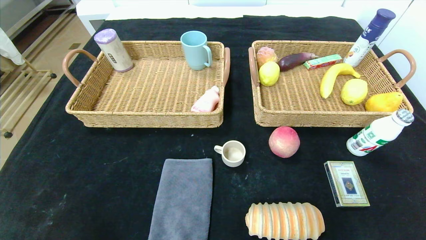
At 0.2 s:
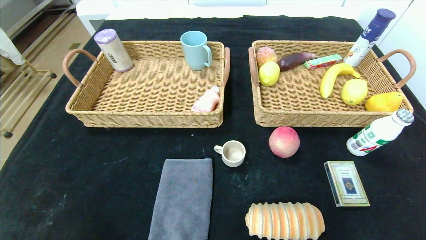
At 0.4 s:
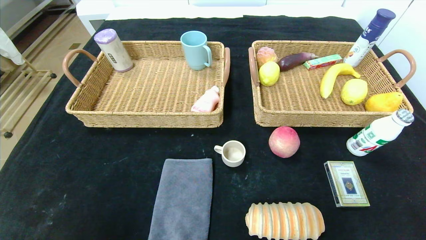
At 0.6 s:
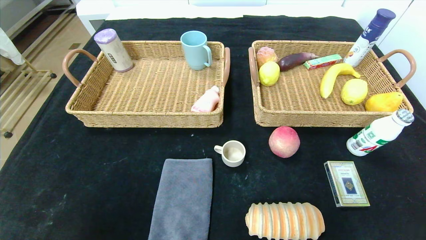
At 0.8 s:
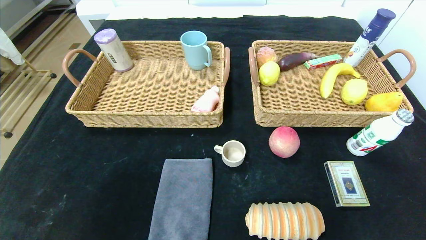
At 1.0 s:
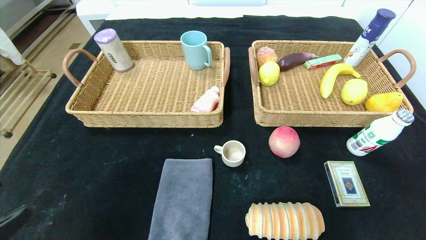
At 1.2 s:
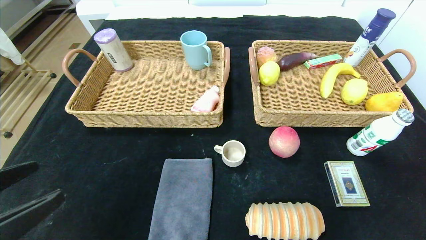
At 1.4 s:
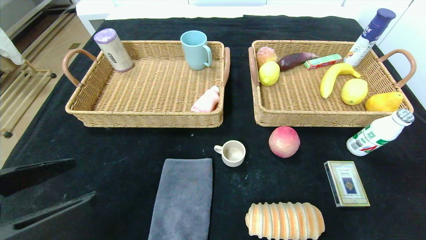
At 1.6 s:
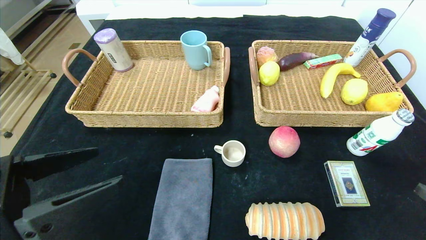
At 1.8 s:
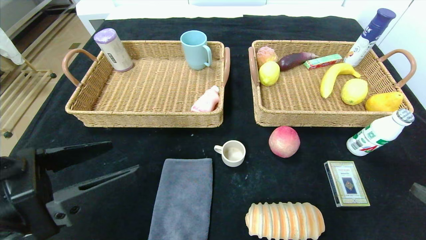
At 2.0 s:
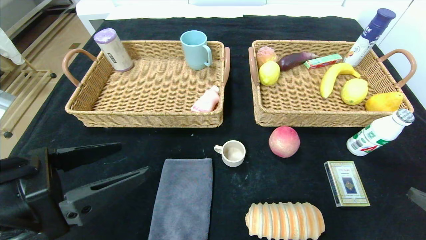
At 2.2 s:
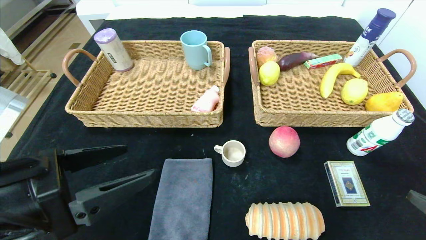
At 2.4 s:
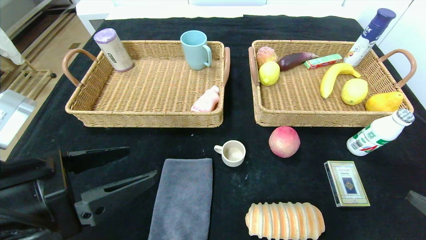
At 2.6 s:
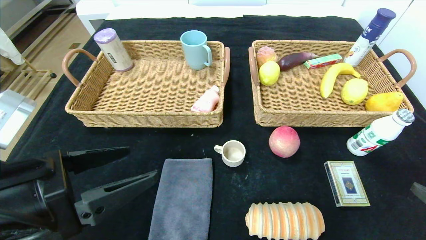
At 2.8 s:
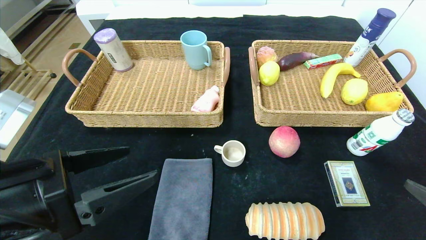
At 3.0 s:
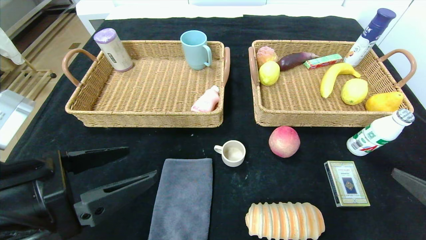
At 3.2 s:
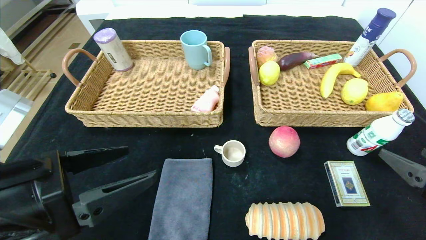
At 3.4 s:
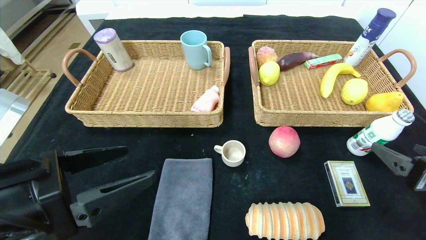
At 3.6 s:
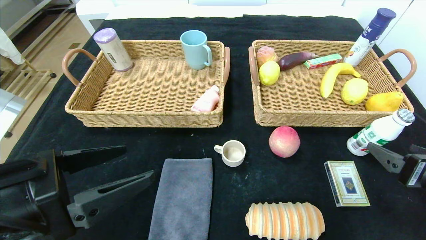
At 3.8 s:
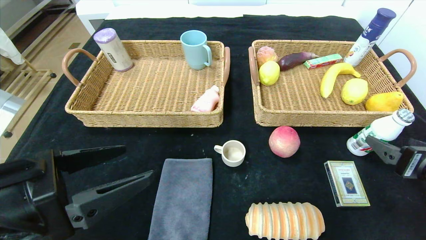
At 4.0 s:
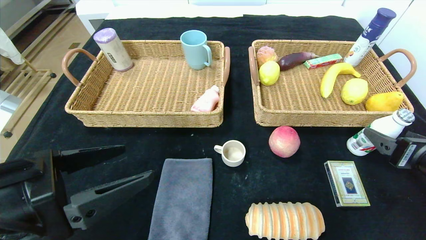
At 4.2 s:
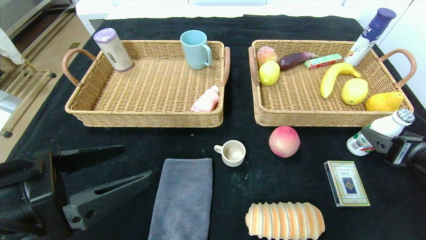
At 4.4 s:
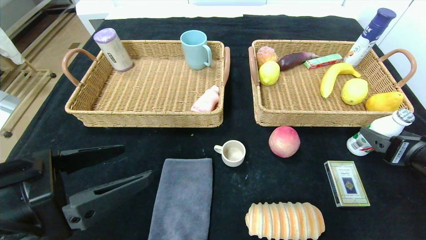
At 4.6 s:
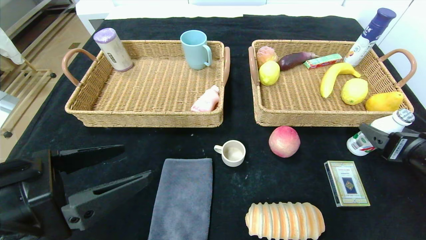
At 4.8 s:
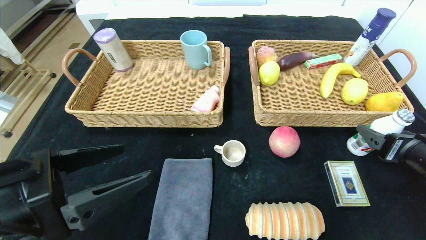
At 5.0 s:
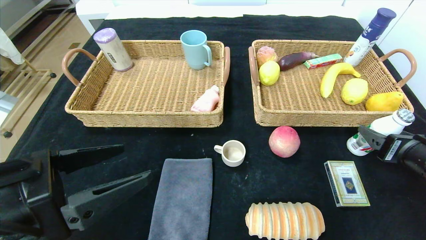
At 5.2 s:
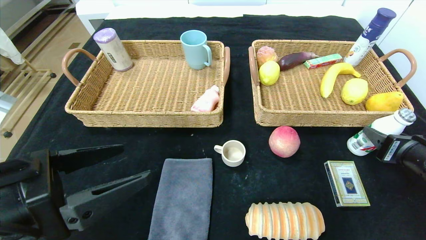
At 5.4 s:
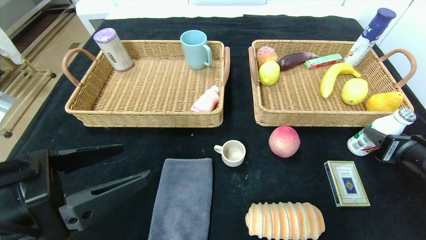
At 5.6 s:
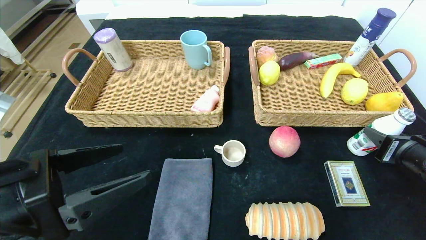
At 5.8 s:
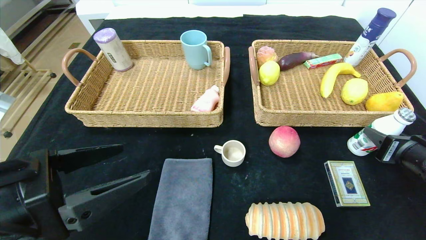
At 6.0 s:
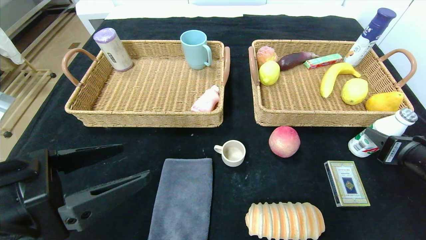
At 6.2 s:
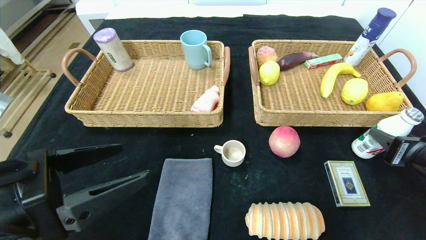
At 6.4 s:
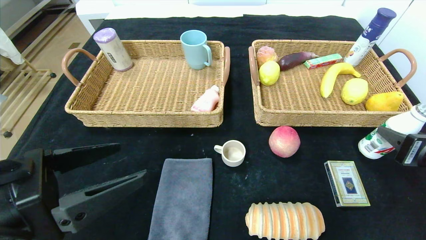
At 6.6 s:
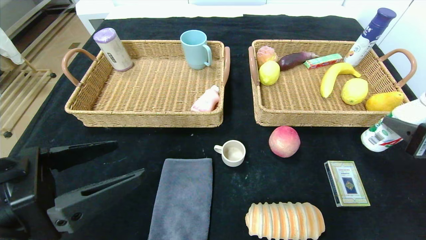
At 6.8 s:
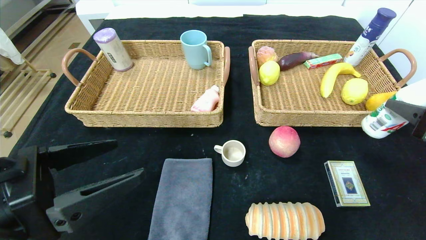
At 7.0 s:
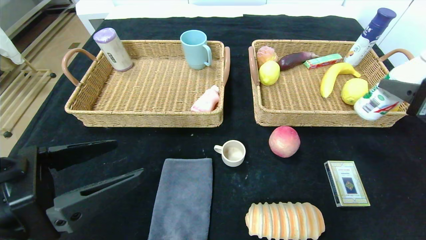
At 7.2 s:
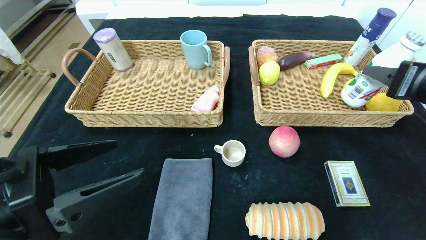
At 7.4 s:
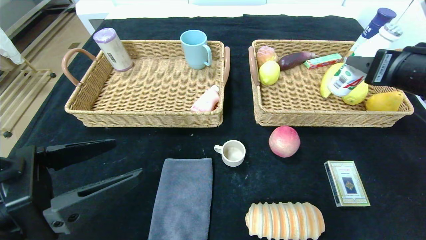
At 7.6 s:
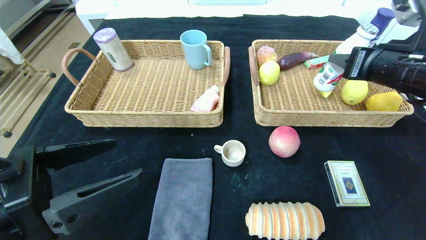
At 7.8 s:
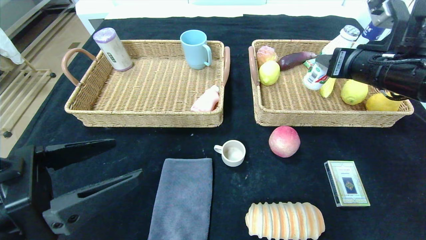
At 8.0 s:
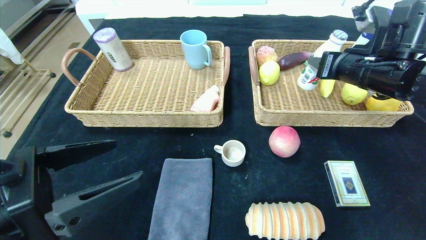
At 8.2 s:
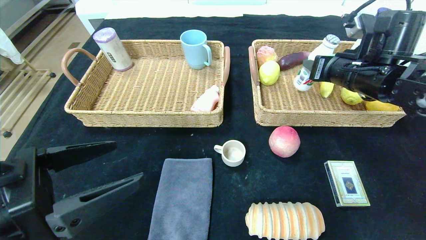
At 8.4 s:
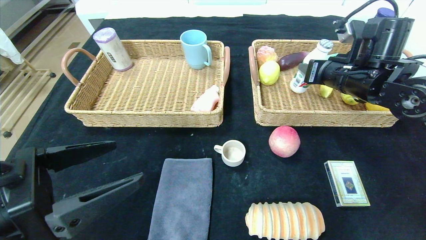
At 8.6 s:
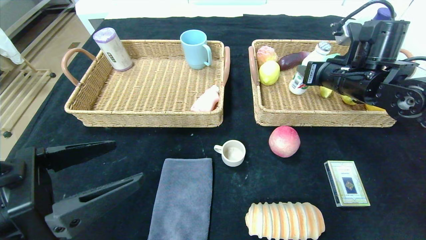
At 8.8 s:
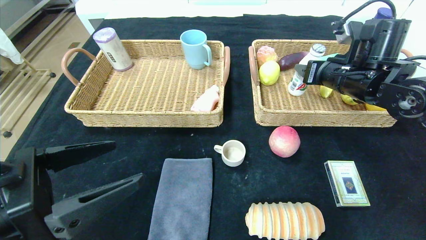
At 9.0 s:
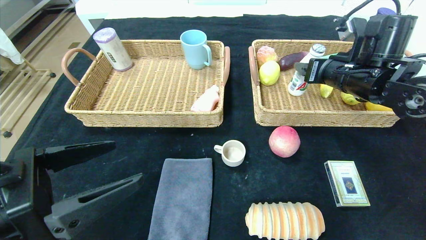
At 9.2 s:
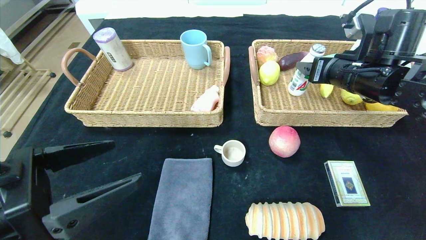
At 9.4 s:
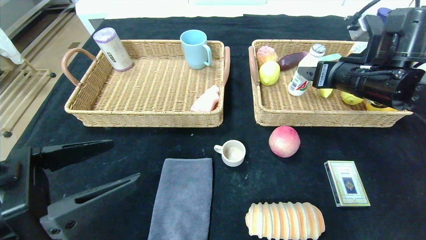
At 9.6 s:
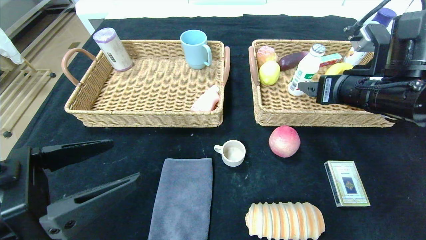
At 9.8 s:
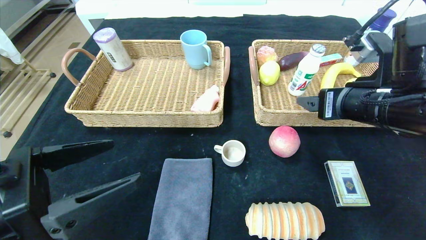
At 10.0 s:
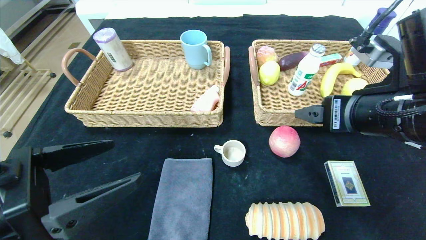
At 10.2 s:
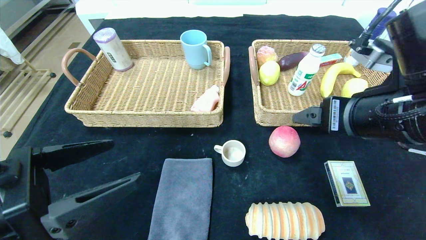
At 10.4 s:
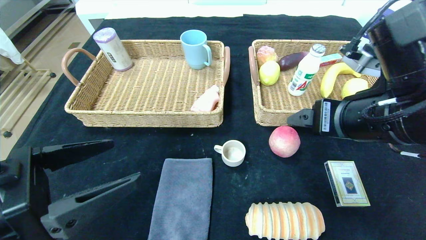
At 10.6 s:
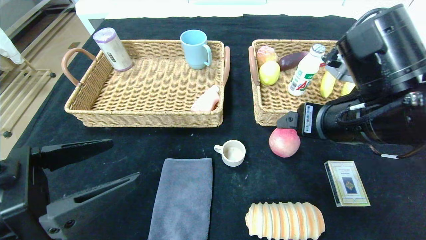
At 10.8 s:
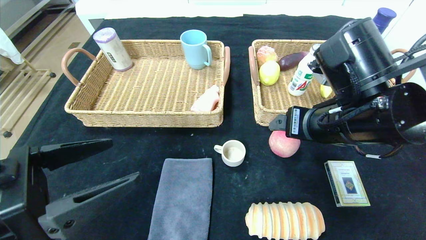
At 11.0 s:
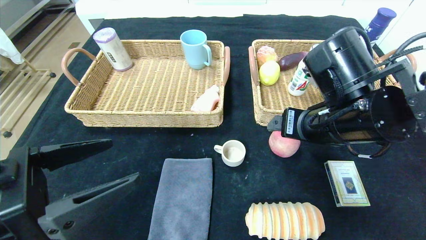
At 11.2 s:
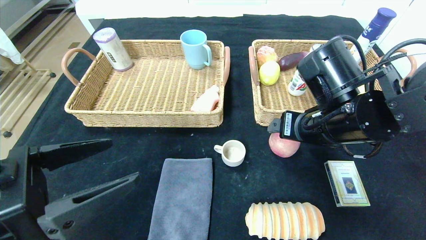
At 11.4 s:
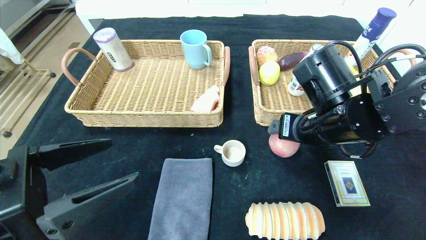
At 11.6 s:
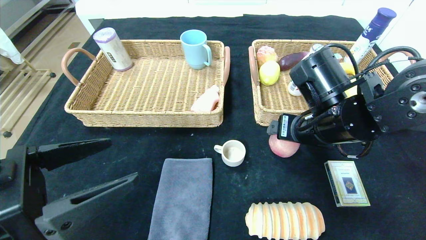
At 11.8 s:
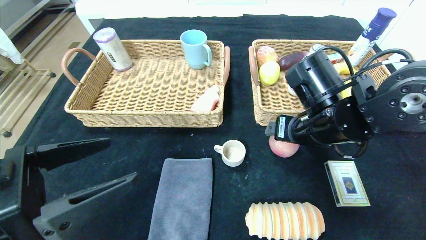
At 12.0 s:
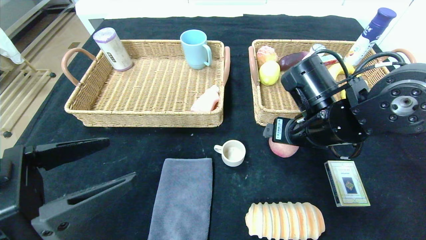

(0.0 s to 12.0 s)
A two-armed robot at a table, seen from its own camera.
Step, 0.0 s - 9.8 s: Grasp the milk and put it in the right basket.
0.0 s - 1.6 s: Both grippers travel together upward and forward, some 20 cm.
1.6 s - 3.0 s: The grippers stay close to where they were, moving slightly.
3.0 s - 4.4 s: The right gripper heads forward, covering some 10 cm.
4.4 s - 6.0 s: The right gripper closes up.
6.0 s - 7.6 s: The right gripper moves upward, forward and to the left, about 15 cm.
7.6 s - 9.0 s: The right gripper shifts roughly 10 cm forward.
9.0 s - 10.4 s: The right gripper travels backward and to the left by some 15 cm.
10.4 s - 12.0 s: The right gripper is displaced forward and downward by approximately 10 cm.

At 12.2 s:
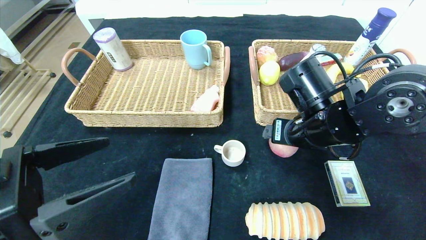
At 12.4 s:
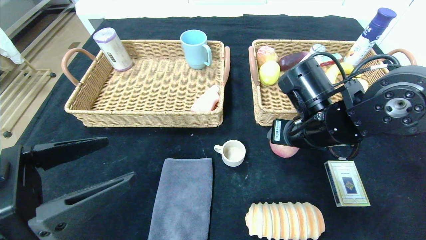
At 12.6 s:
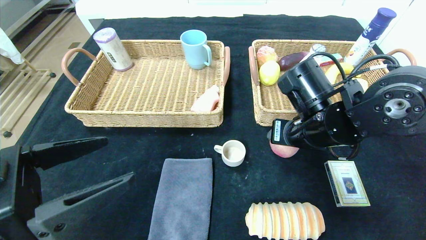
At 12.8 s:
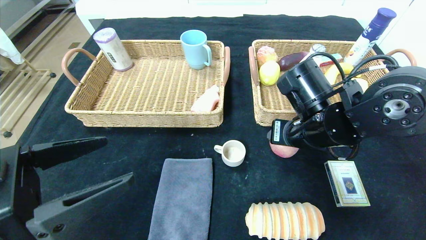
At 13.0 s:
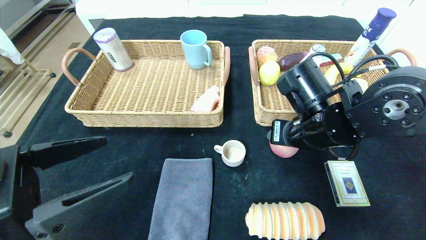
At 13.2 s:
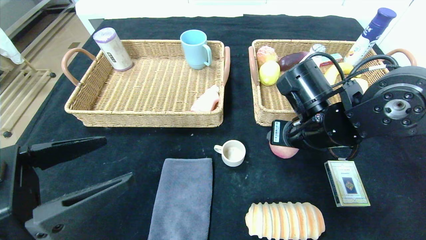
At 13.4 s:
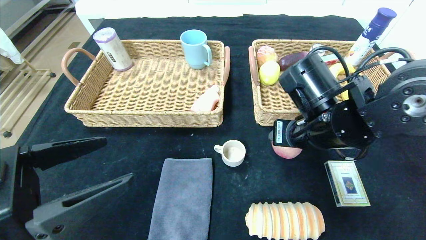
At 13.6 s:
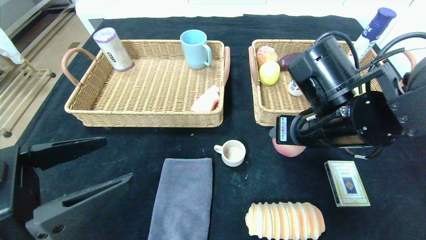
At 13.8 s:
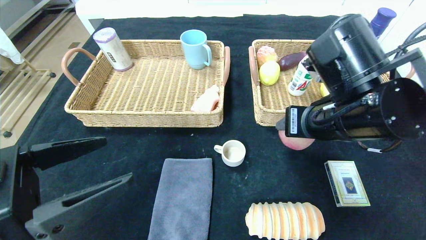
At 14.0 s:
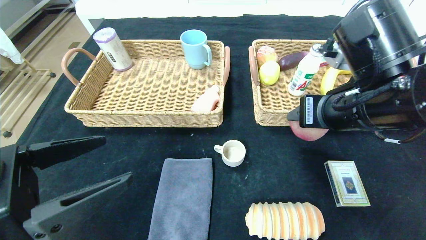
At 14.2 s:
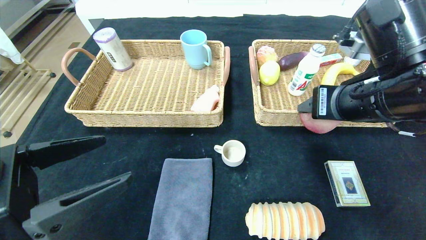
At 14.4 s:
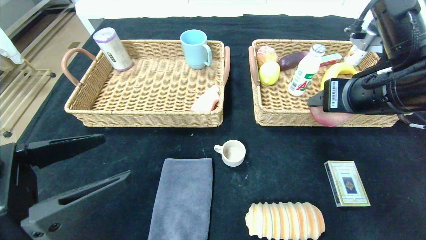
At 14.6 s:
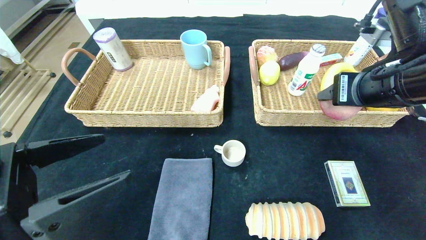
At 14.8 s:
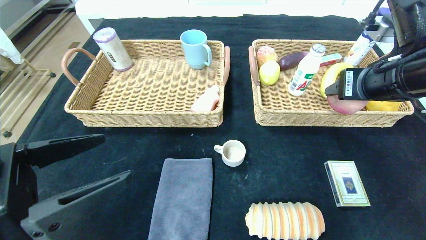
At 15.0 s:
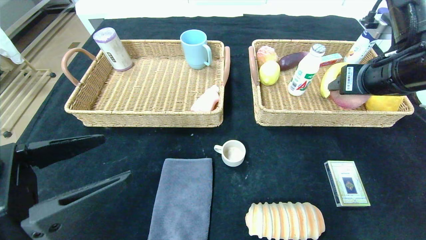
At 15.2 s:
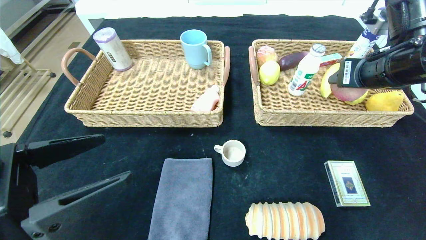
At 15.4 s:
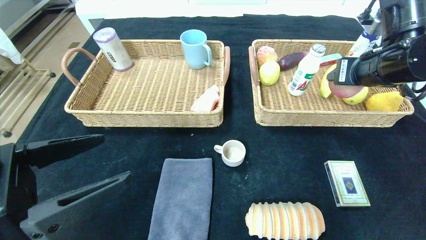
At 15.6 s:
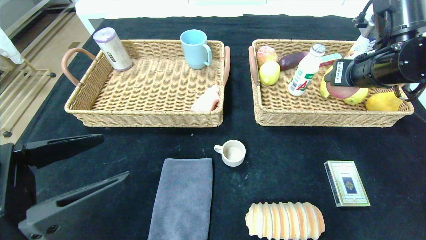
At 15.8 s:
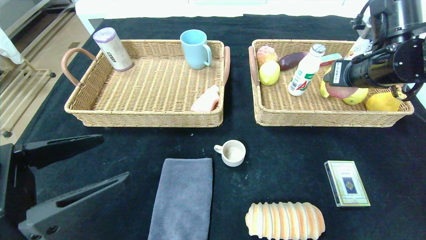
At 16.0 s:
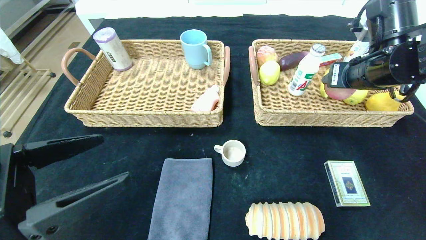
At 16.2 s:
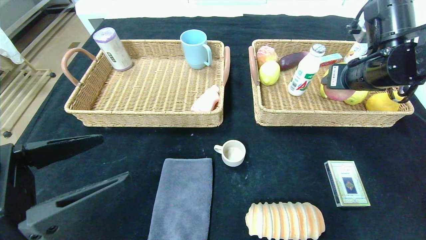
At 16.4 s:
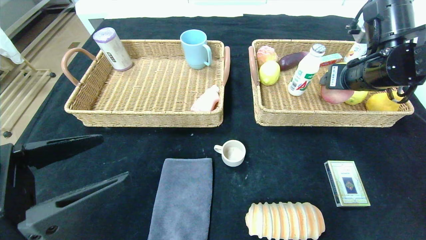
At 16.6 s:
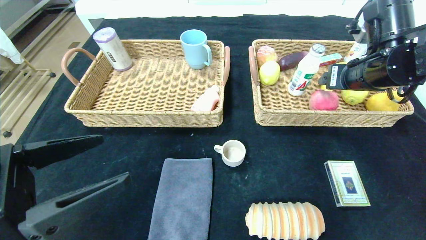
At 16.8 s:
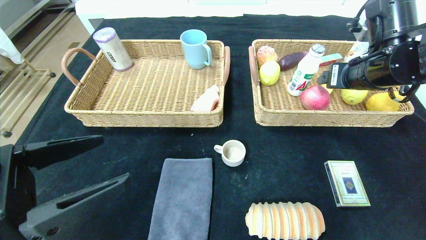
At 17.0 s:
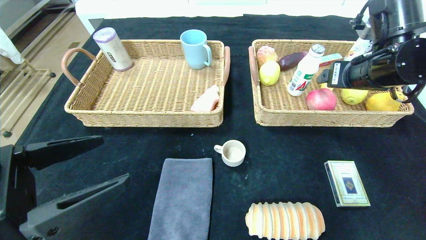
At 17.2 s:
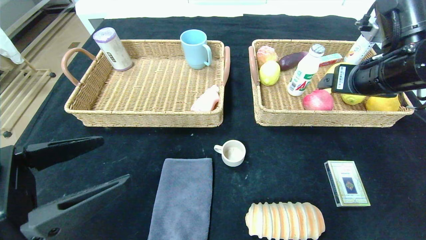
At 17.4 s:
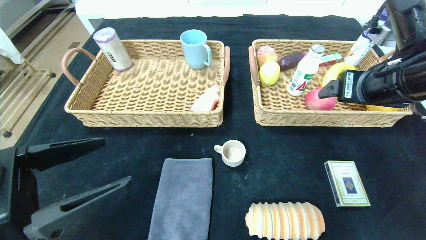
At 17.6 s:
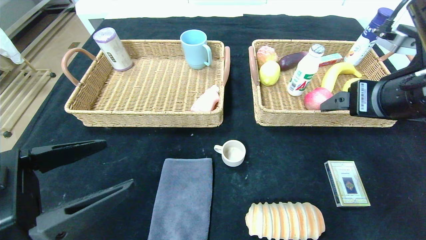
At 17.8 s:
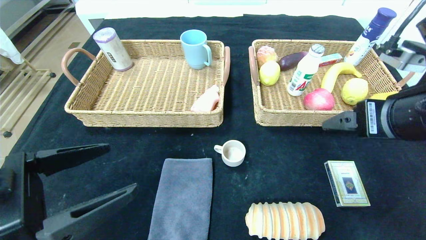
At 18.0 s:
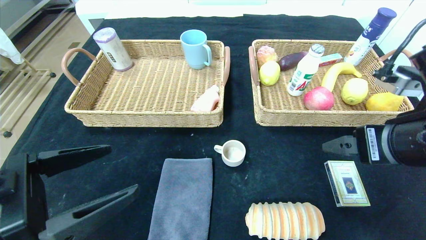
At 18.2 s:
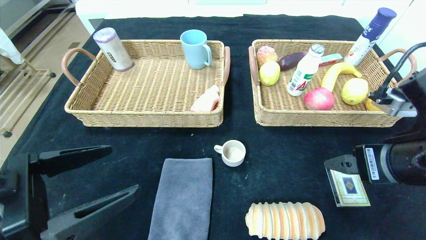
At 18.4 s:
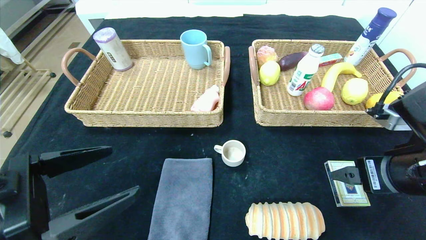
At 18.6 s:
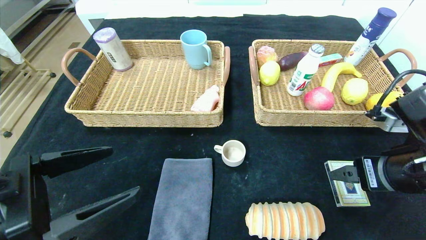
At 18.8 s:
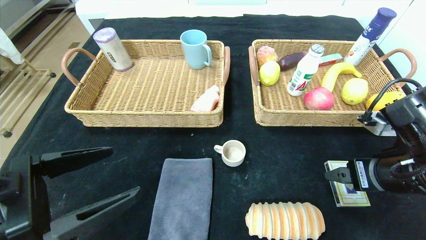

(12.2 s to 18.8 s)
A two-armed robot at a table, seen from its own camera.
Step, 12.2 s - 16.8 s: Grasp the peach and put it in the right basket.
12.2 s - 13.8 s: The right gripper shifts by roughly 5 cm.
13.8 s - 15.4 s: The right gripper is displaced to the right and forward by approximately 10 cm.
15.4 s - 17.2 s: There are only small adjustments of the grippers.
17.2 s - 18.8 s: The right gripper moves downward and backward, roughly 15 cm.
